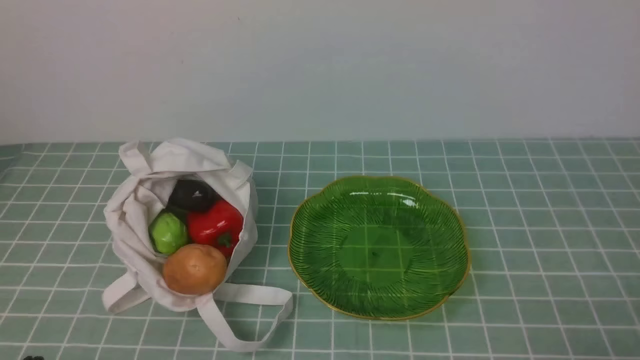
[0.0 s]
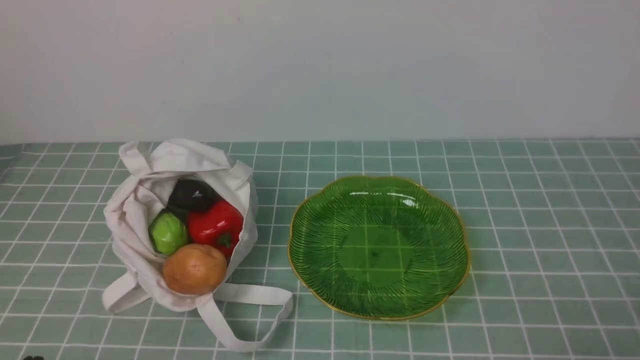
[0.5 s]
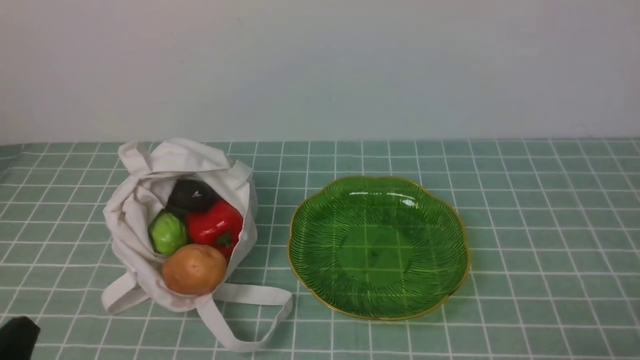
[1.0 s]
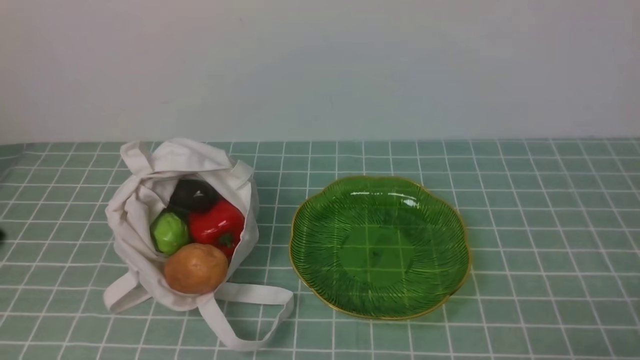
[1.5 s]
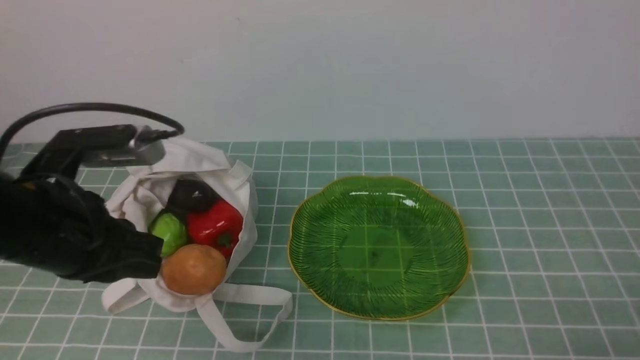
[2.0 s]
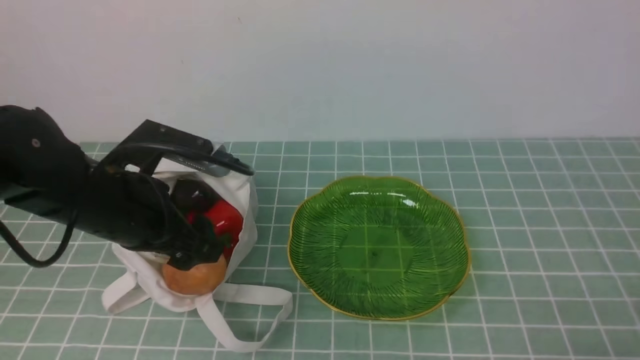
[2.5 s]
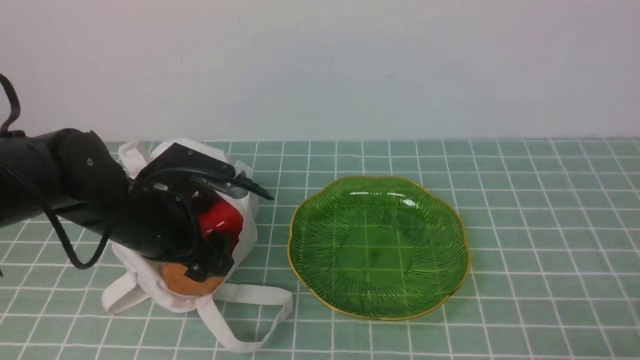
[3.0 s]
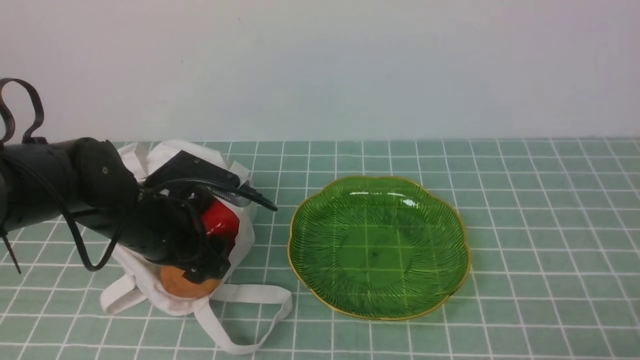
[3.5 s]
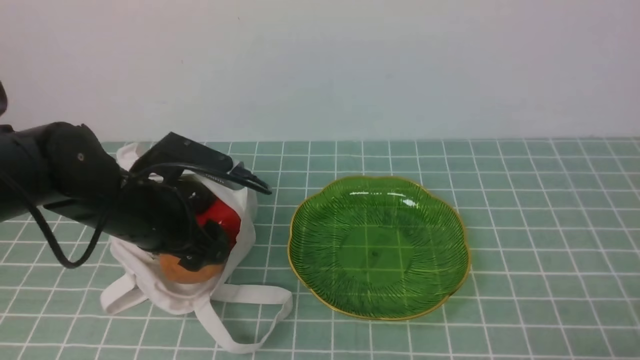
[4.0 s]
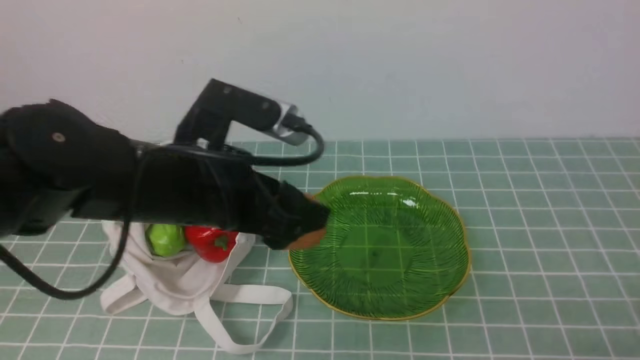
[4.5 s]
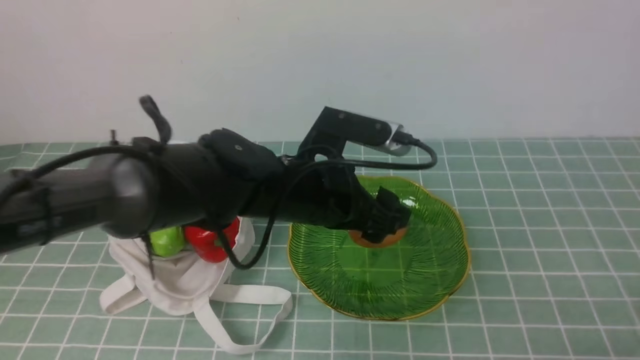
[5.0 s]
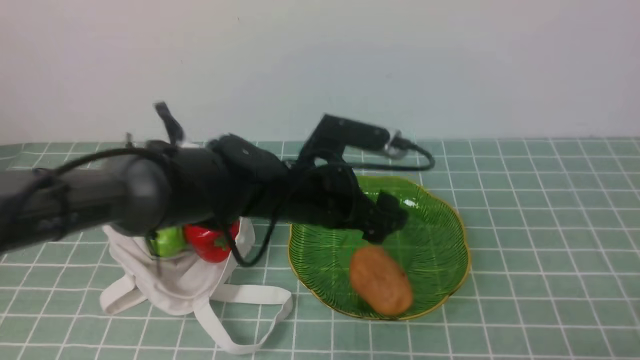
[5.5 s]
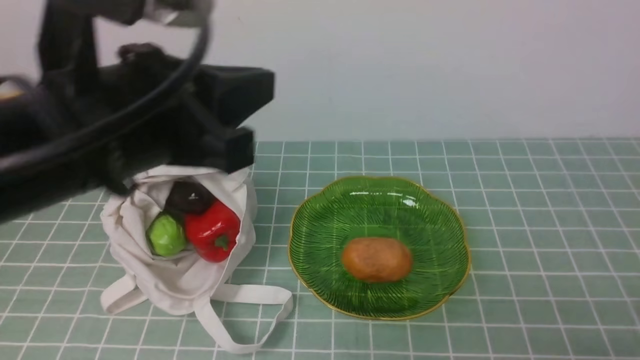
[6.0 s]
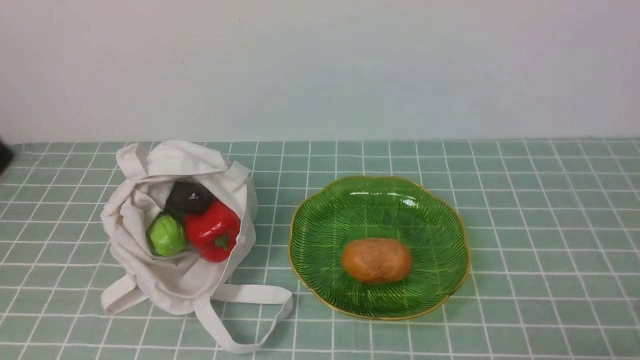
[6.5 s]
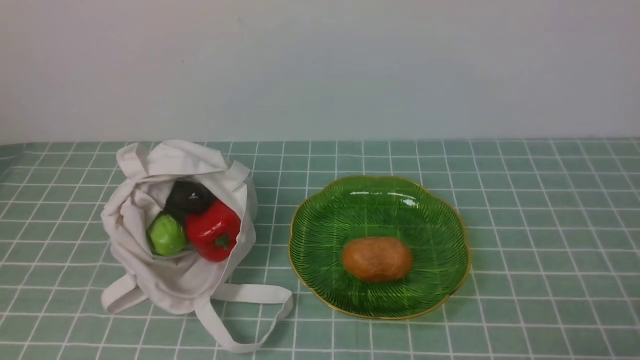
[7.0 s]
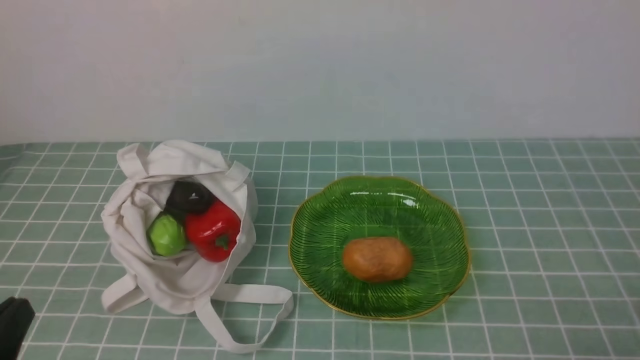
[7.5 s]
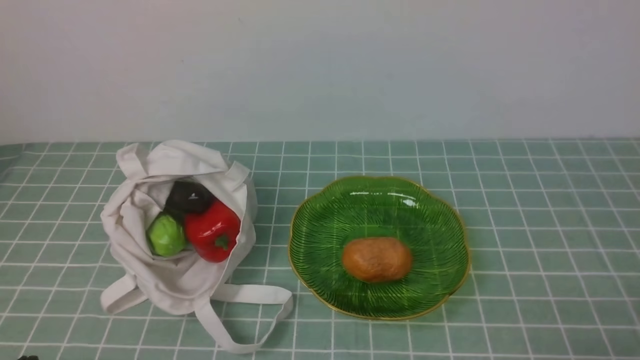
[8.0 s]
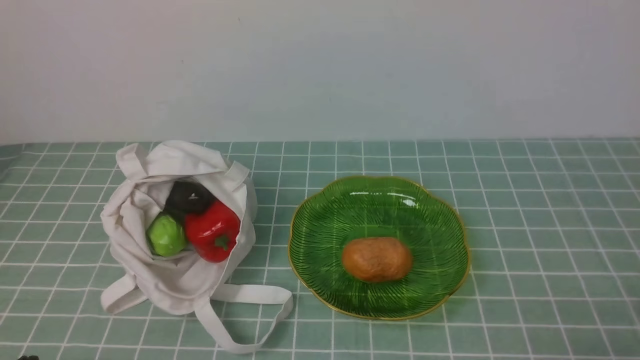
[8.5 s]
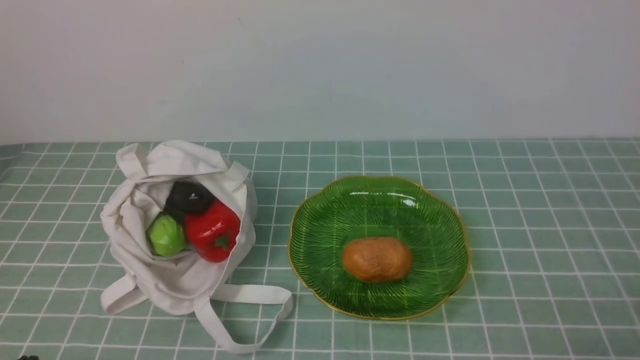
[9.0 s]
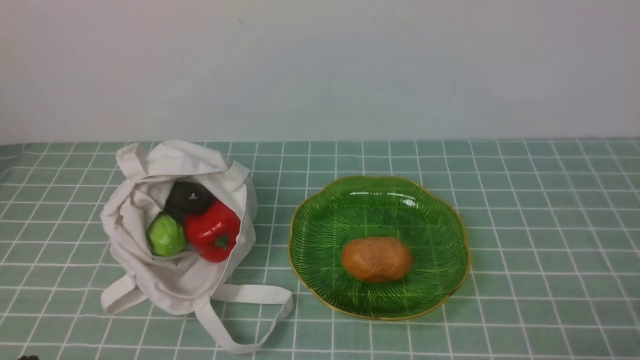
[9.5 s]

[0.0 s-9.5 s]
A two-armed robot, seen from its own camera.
Task of the whole recording: take vegetables from cloth bag on blue coffee tablecloth place on plate.
Step, 0.0 to 3.5 s: Grasp the potato with left gripper.
Step, 4.0 to 5.5 s: Place the potato on the plate with left gripper.
2.0 to 4.0 s: The left gripper shifts approximately 15 cm forward and downward, and opens.
4.0 to 5.5 s: The left gripper is displaced to the right by about 15 cm.
5.5 to 7.5 s: The left gripper moves backward and to the left, roughly 35 cm, and closes up.
7.5 to 9.5 s: The left gripper shifts some 10 cm downward.

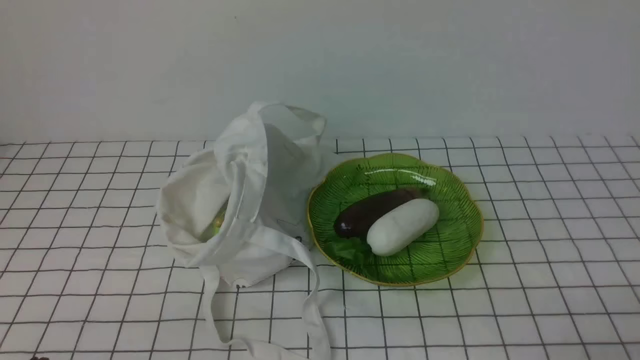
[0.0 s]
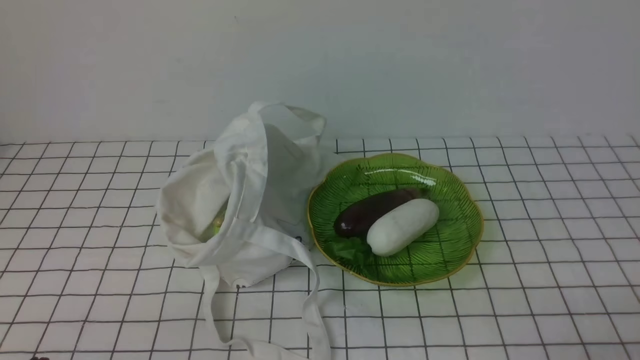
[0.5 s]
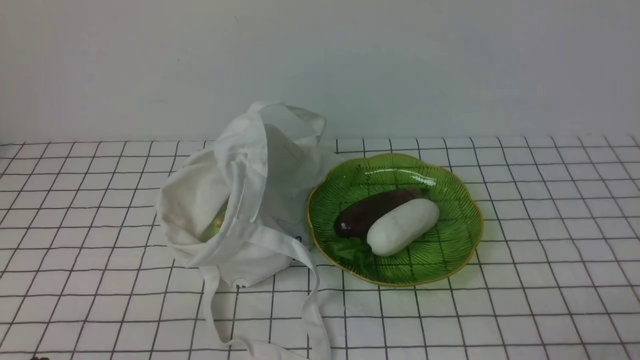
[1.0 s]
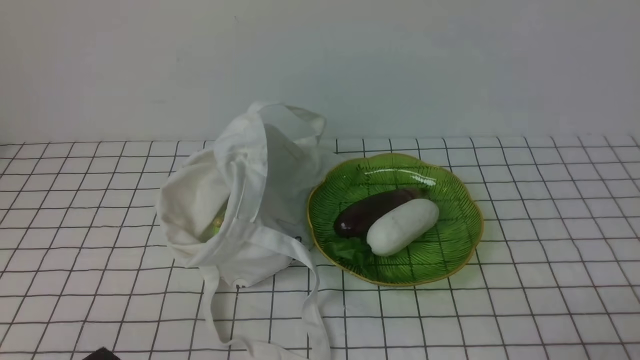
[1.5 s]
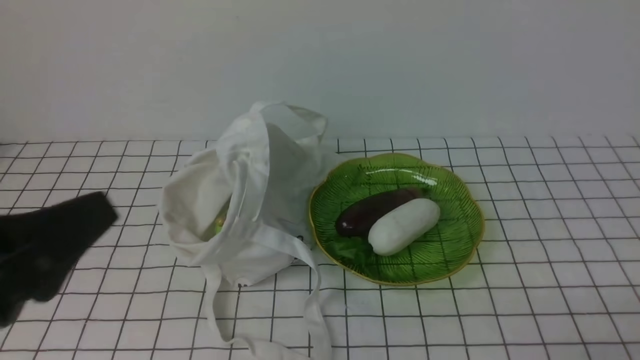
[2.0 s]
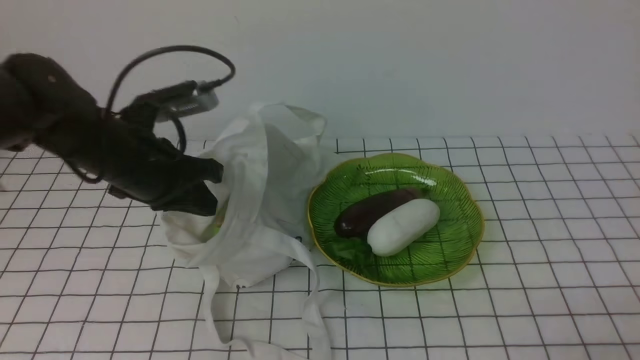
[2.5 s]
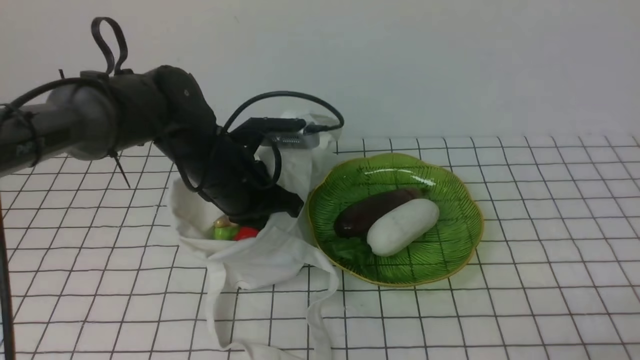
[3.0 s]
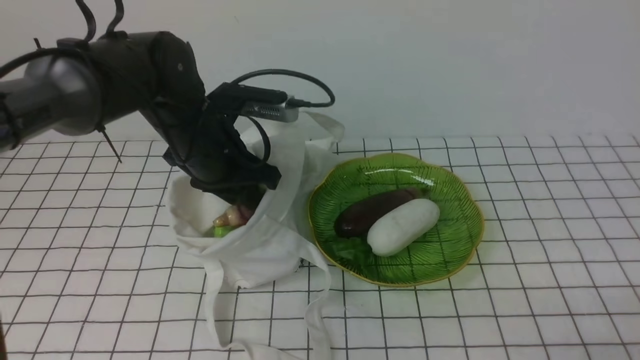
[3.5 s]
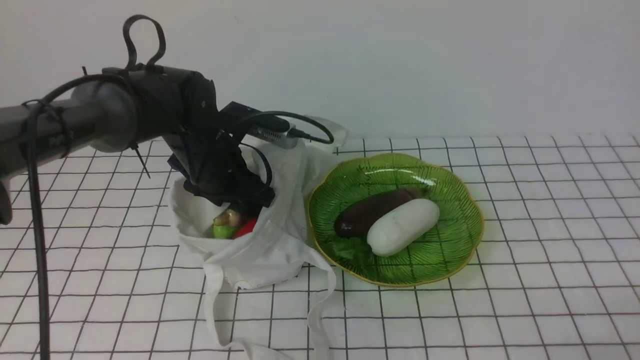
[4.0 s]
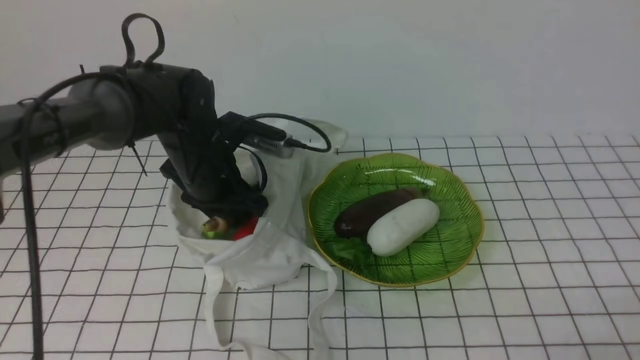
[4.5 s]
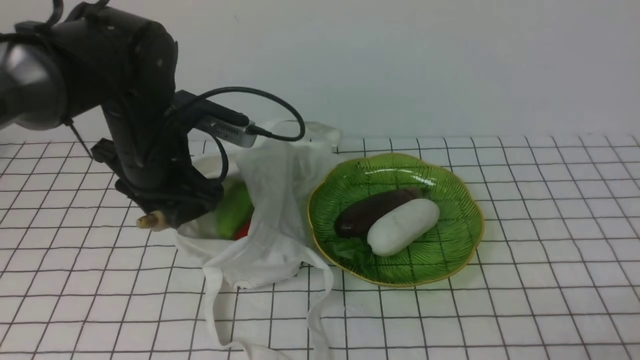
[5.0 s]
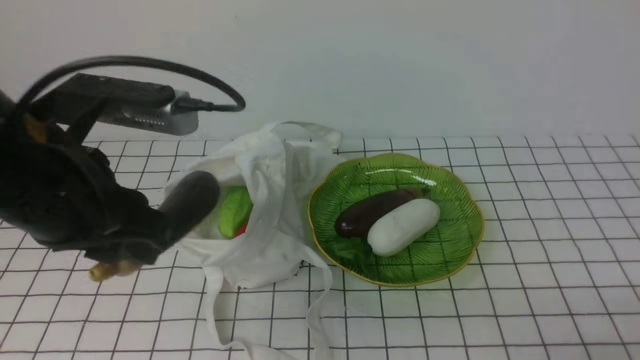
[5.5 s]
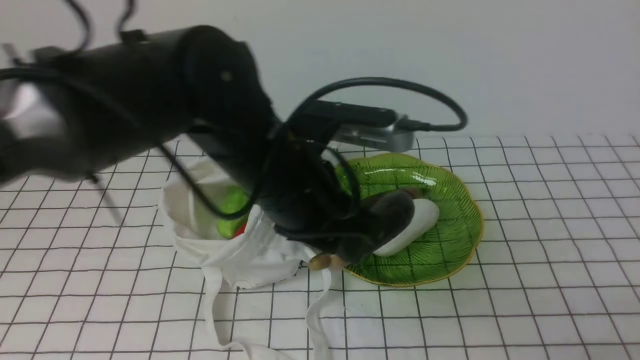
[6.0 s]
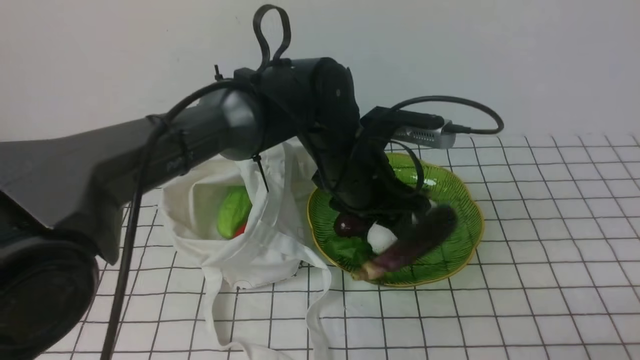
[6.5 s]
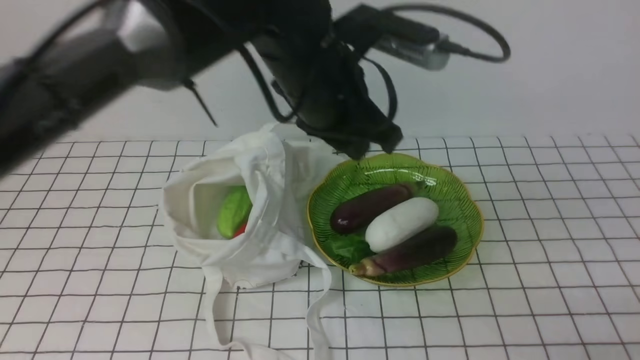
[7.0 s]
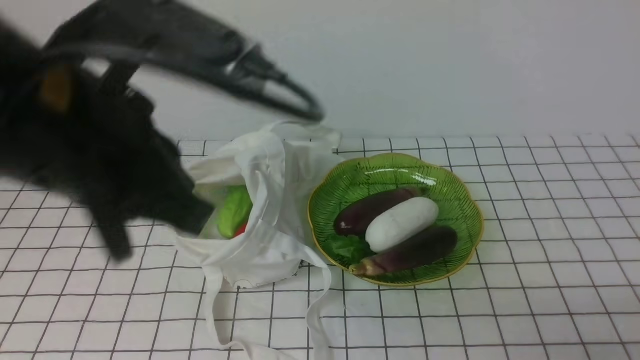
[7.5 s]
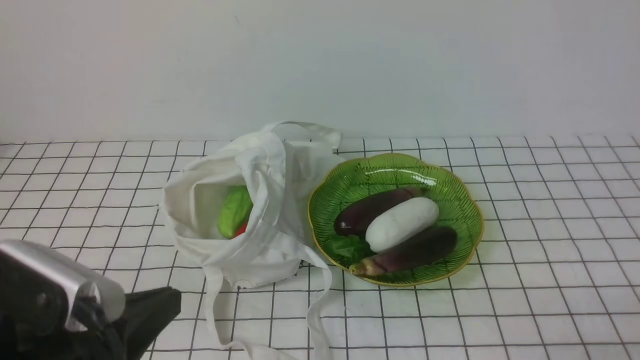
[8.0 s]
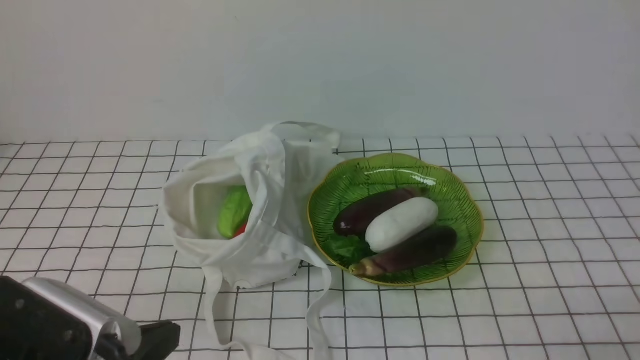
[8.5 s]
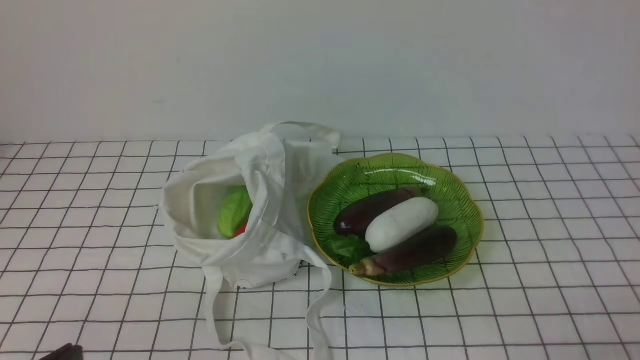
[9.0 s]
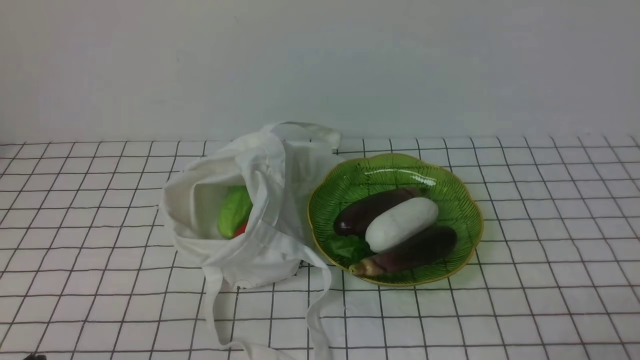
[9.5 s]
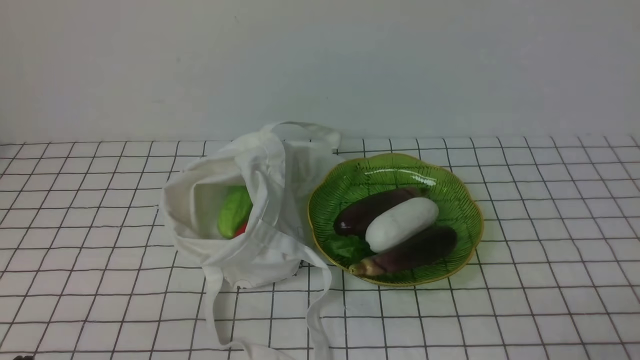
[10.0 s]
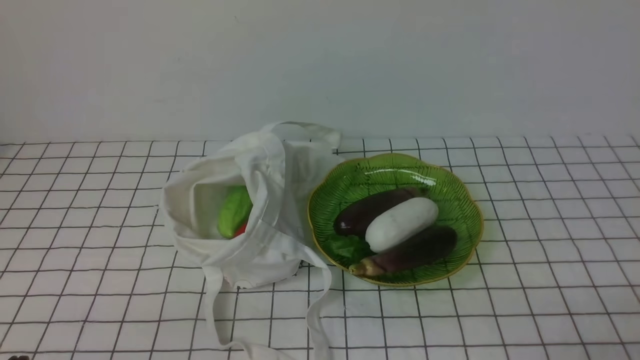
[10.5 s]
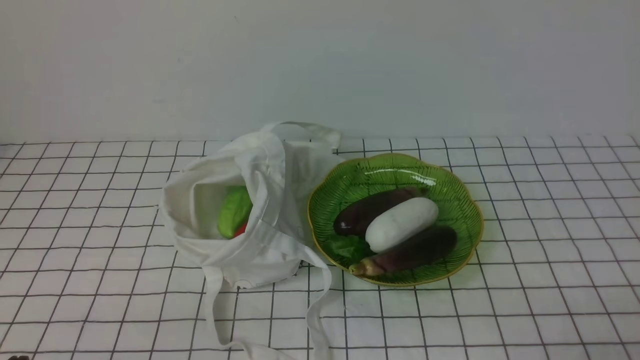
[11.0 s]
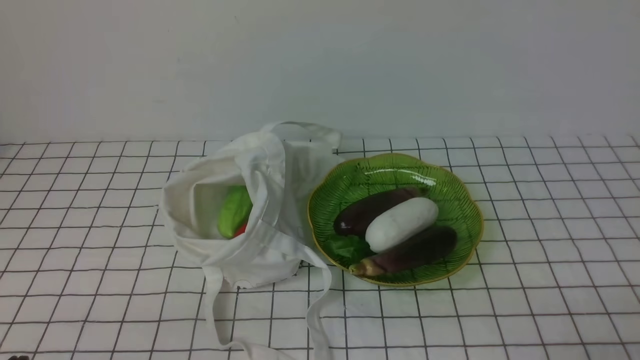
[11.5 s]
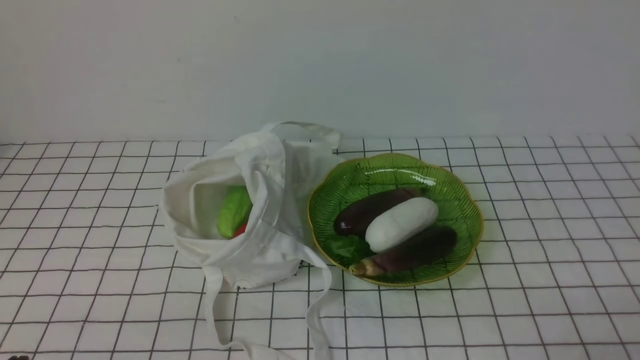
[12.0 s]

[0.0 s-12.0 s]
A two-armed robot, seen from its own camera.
Task of the whole recording: take vegetables from bag on white checkered tablecloth place on plate.
Step, 0.0 to 4.0 s: Grasp the eggplant with left gripper.
Step, 4.5 to 6.5 s: Place the eggplant on the plate with left gripper.
2.0 to 4.0 s: The left gripper heads forward, covering some 30 cm, and opens up.
4.0 to 6.0 s: The left gripper shifts approximately 20 cm backward, upward and to the right, and closes.
6.0 to 8.0 s: The left gripper is displaced backward and to the left by about 20 cm, and closes its fingers.
8.0 to 10.0 s: The left gripper is displaced downward, to the left and backward by roughly 15 cm.
10.0 to 12.0 s: Neither gripper changes place.
